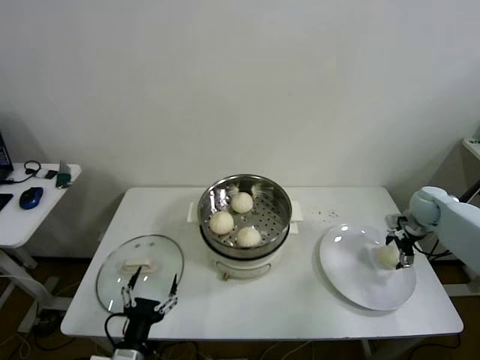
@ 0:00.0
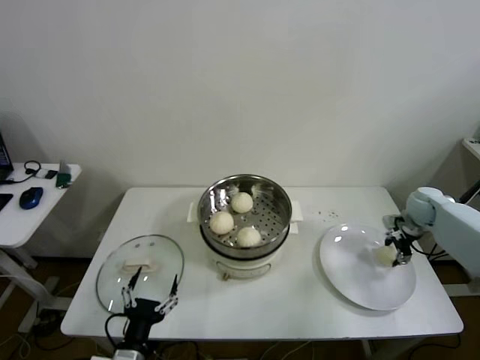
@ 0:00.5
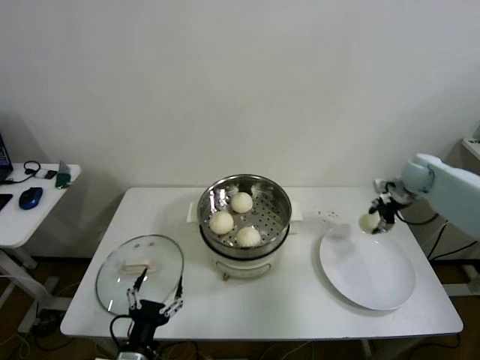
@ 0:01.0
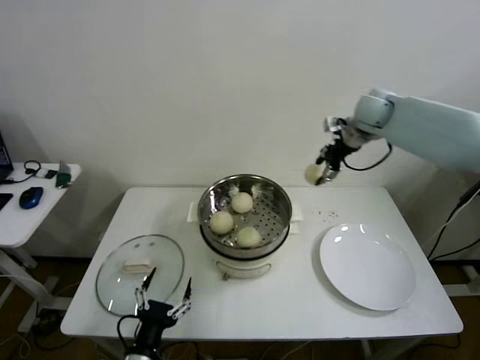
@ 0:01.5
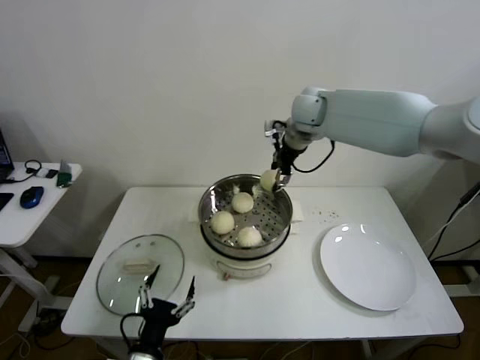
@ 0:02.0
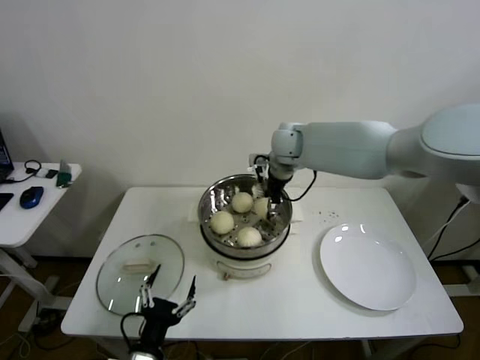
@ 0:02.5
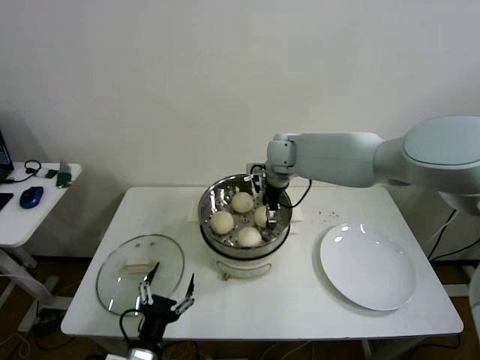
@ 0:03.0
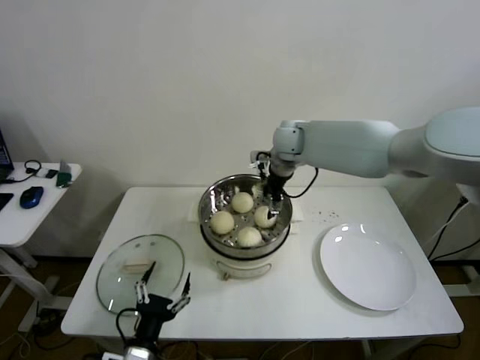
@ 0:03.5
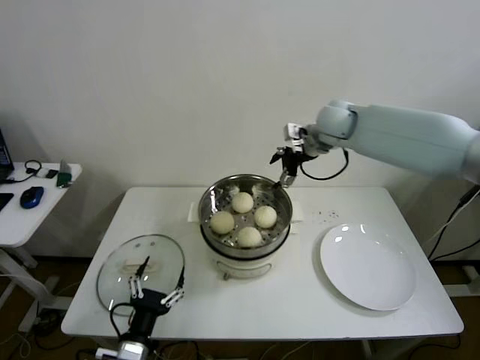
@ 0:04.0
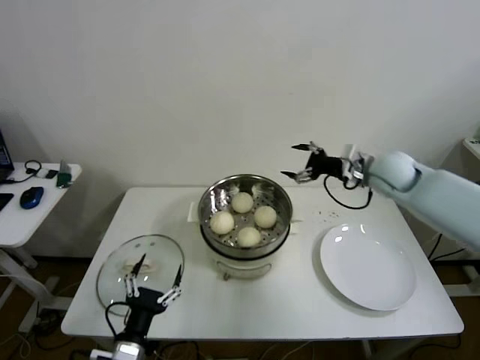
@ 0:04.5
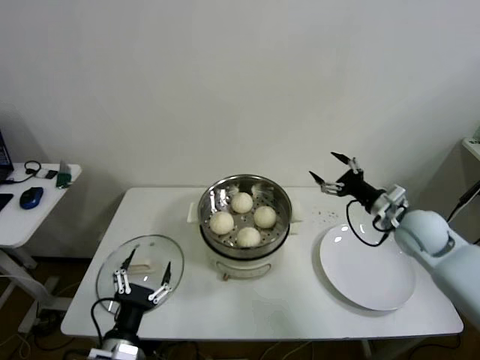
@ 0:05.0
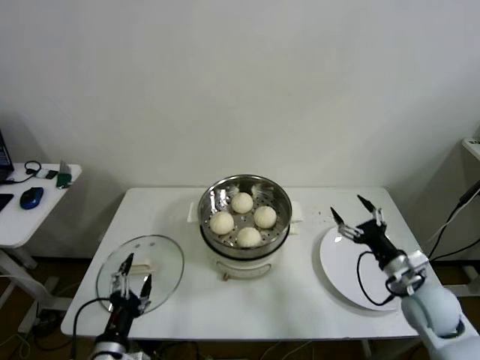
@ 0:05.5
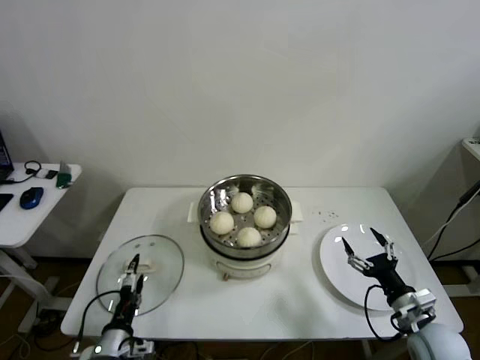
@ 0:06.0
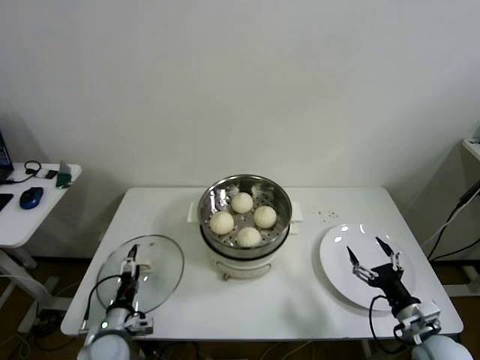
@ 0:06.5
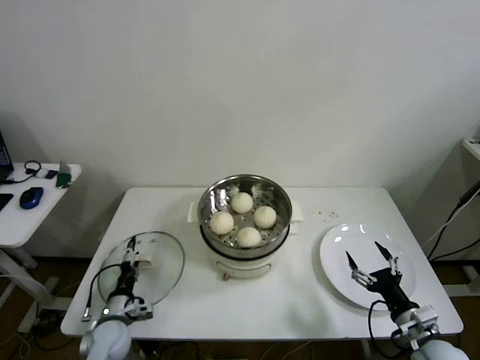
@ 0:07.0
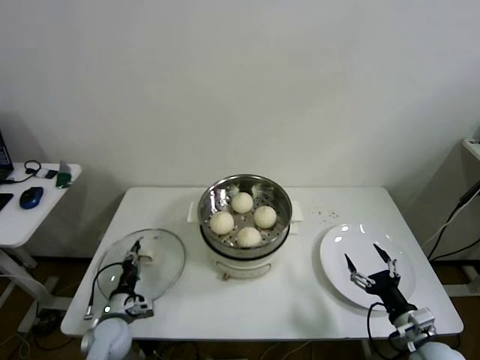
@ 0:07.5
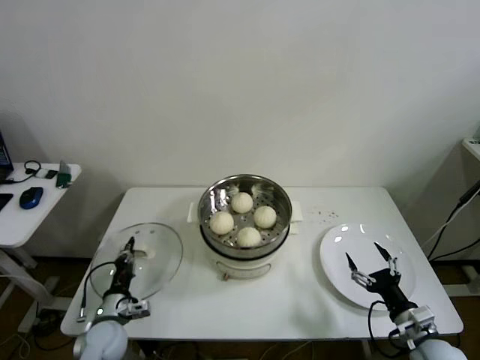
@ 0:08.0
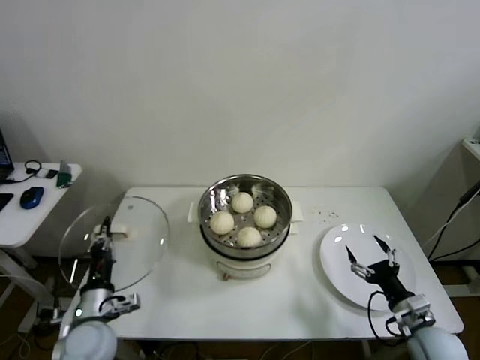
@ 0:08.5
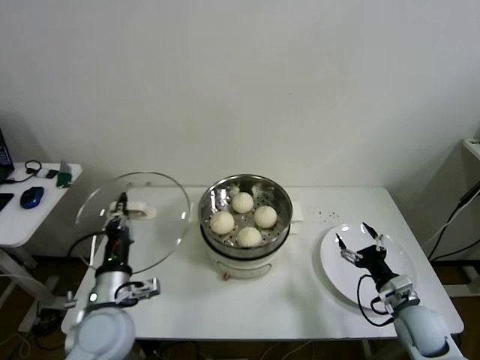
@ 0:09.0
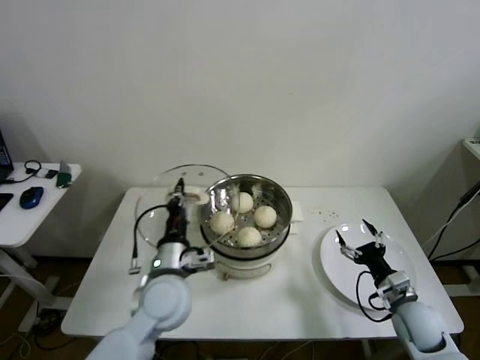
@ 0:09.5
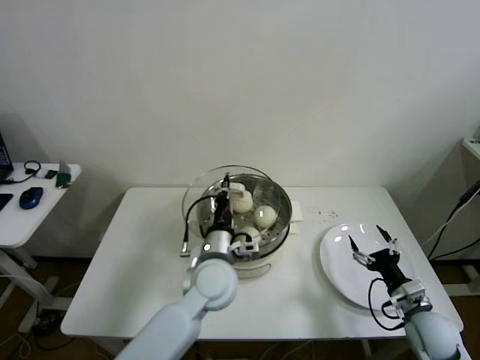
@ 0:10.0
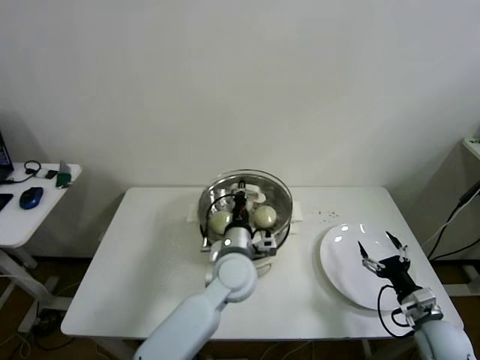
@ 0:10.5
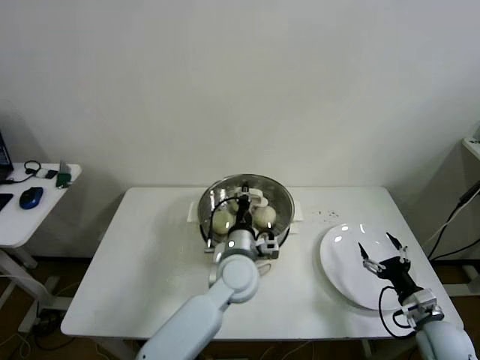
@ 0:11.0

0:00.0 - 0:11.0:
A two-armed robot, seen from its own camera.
Step, 0:01.0 - 0:03.0: Place the baozi on the steamer with right gripper.
Step, 0:03.5 - 0:07.5: Grasp the pot lid with left gripper.
0:00.0 - 0:02.0: The right gripper shifts about 40 cm to the left and upward, and closes its fingers.
0:02.0 - 0:03.5: The right gripper shifts about 10 cm downward, and opens.
0:03.5 - 0:05.5: The right gripper heads backward, to the right and downward, covering about 40 cm. The left gripper shifts by roughly 5 cm.
0:05.5 - 0:07.5: The left gripper is displaced forward, downward and to the left by about 20 cm, and closes, while the right gripper moves backward and downward, approximately 15 cm.
0:07.5 - 0:09.0: The right gripper shifts about 5 cm forward. The left gripper moves upward, roughly 20 cm.
0:09.0 - 0:11.0: The left gripper is displaced to the right and forward by approximately 25 cm.

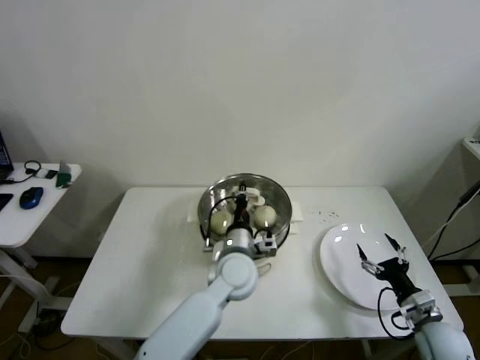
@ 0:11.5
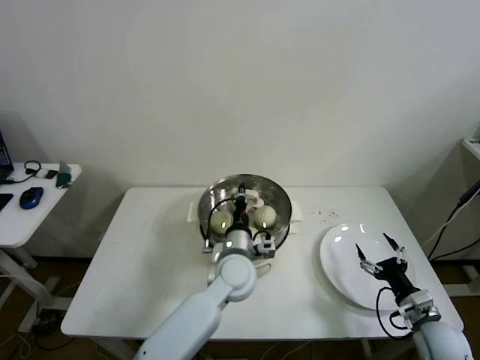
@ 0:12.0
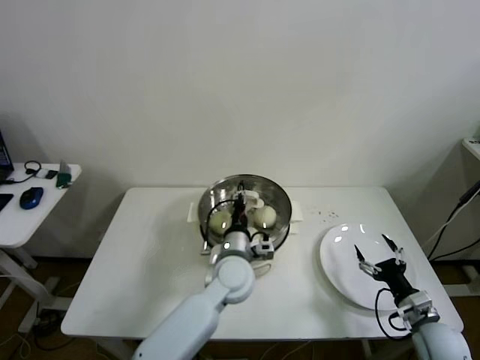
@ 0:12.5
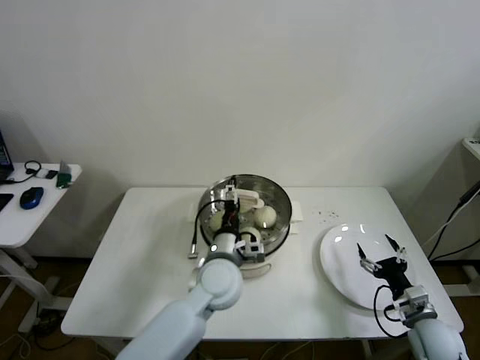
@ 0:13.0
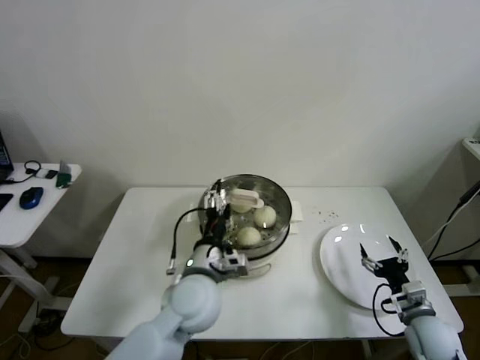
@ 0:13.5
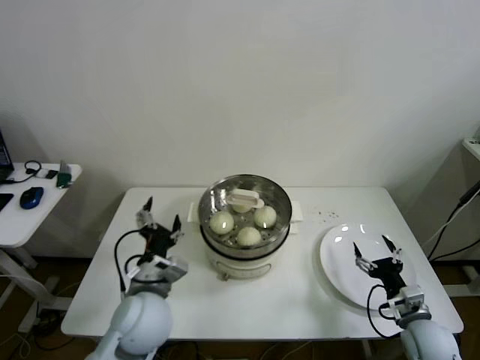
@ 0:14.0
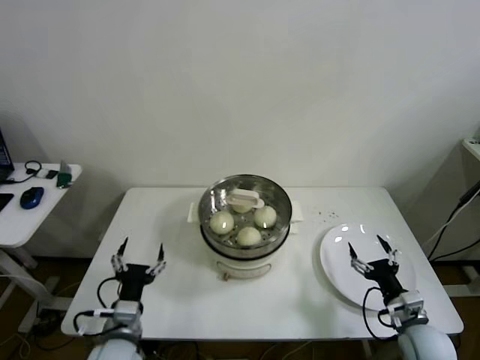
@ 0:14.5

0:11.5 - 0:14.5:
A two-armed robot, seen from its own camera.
0:11.5 - 0:13.0: The left gripper opens its fingers.
0:13.0 - 0:14.5: The left gripper shifts some 25 cm to the left and backward.

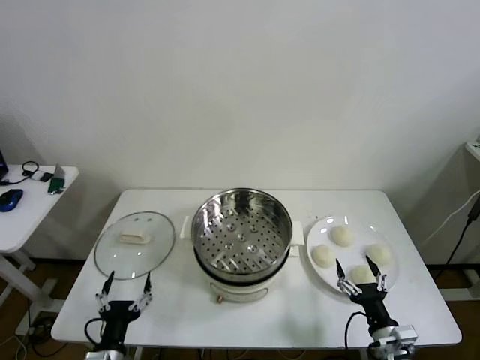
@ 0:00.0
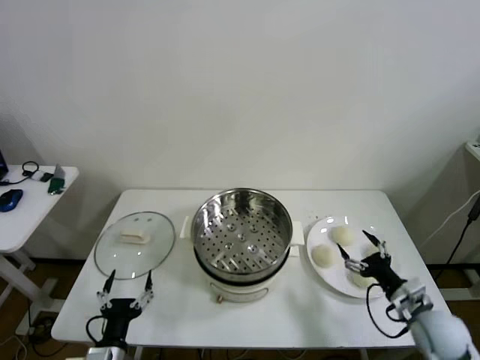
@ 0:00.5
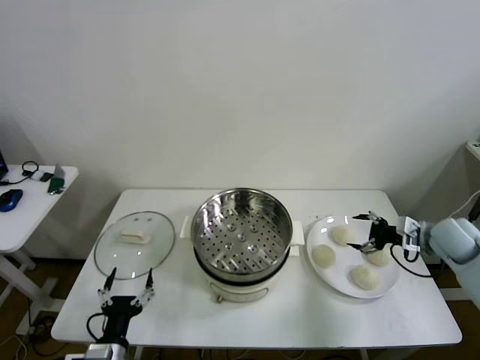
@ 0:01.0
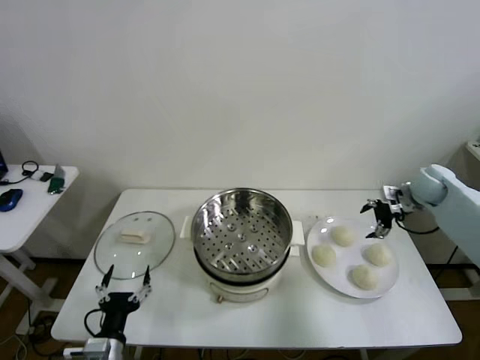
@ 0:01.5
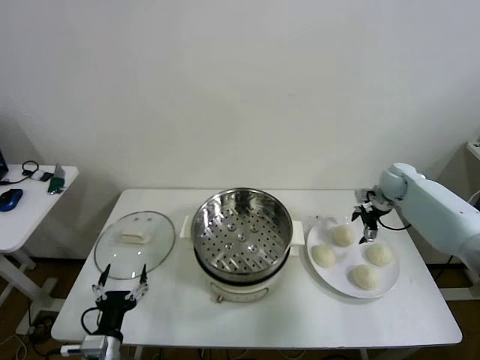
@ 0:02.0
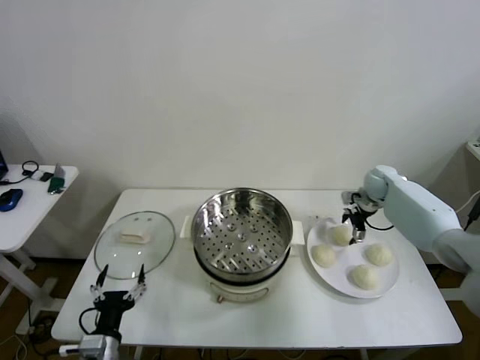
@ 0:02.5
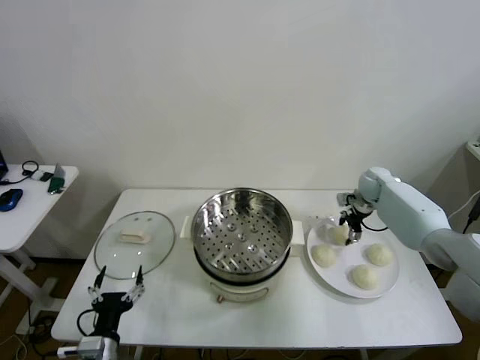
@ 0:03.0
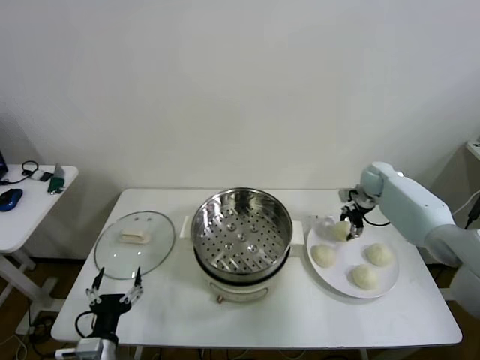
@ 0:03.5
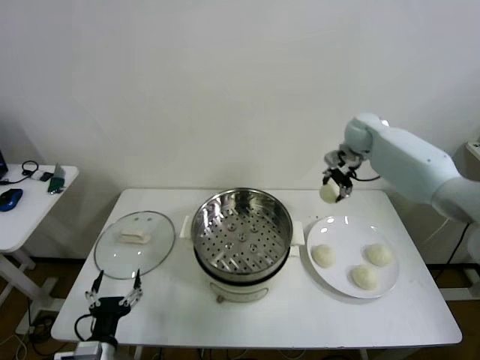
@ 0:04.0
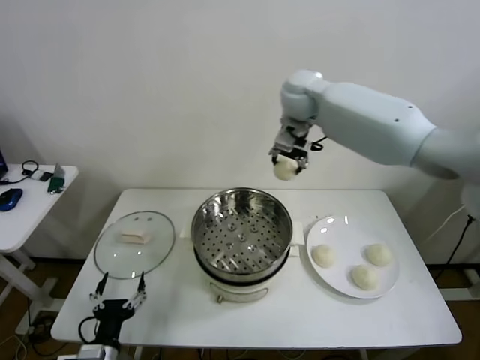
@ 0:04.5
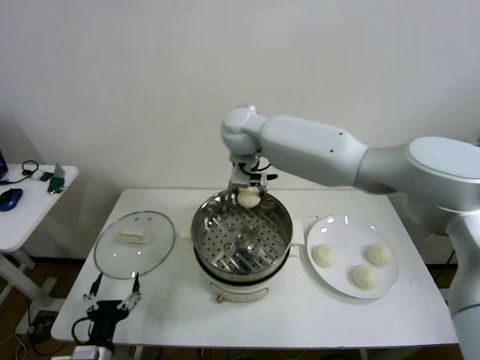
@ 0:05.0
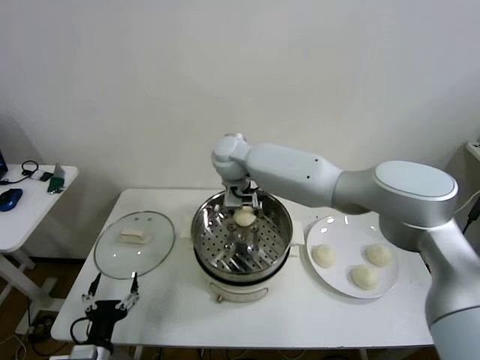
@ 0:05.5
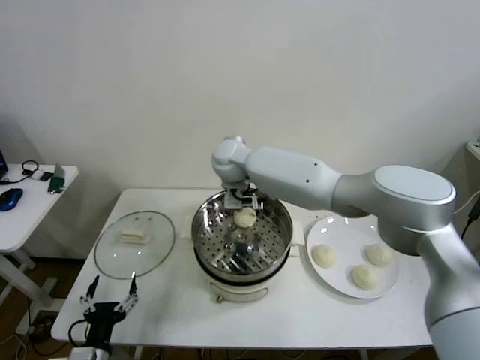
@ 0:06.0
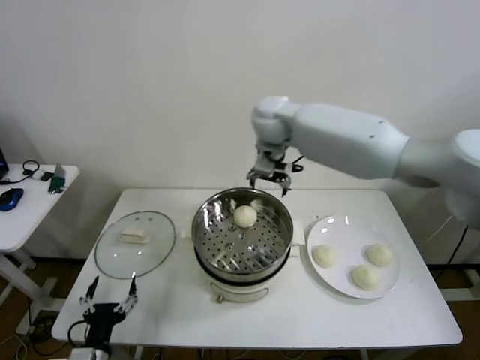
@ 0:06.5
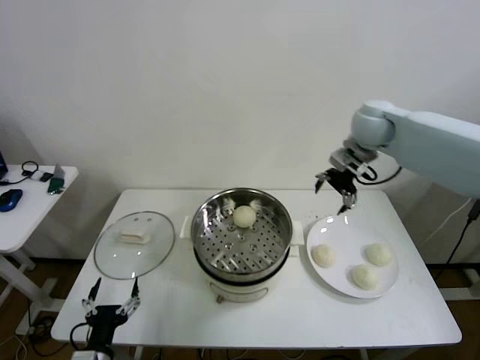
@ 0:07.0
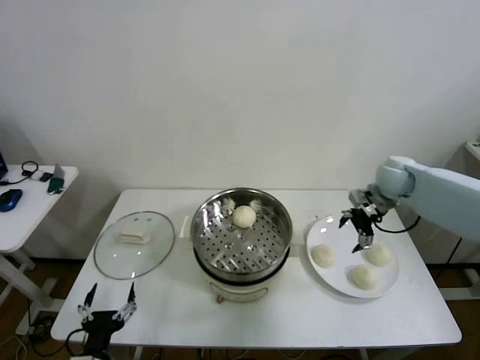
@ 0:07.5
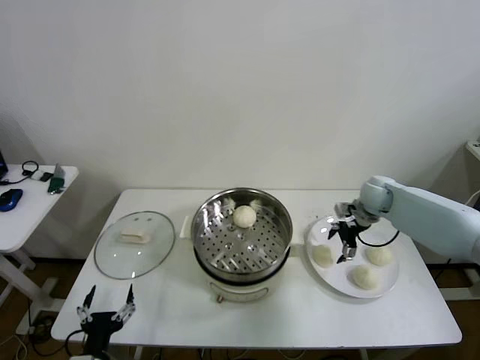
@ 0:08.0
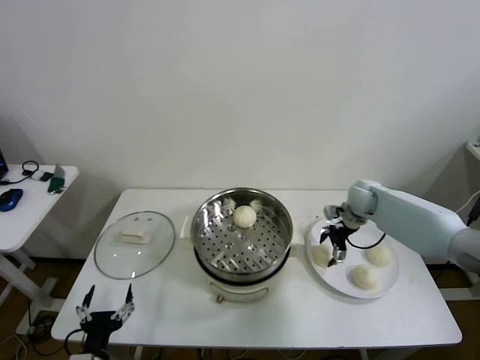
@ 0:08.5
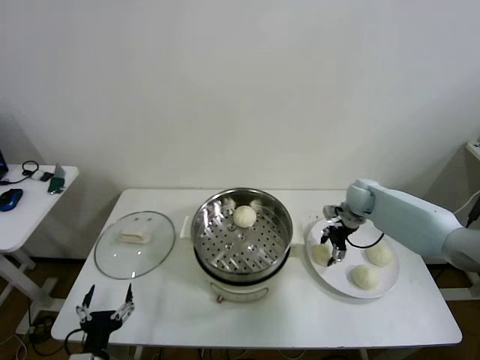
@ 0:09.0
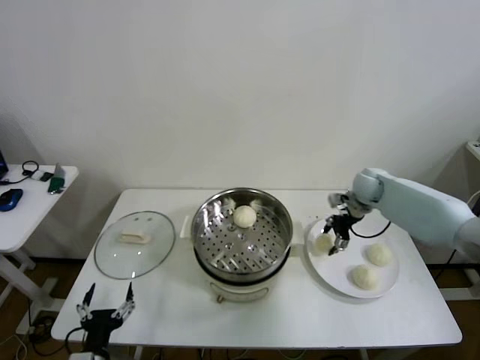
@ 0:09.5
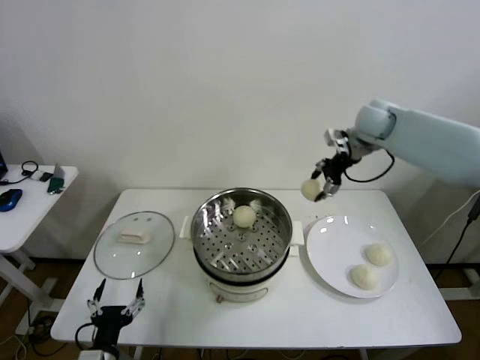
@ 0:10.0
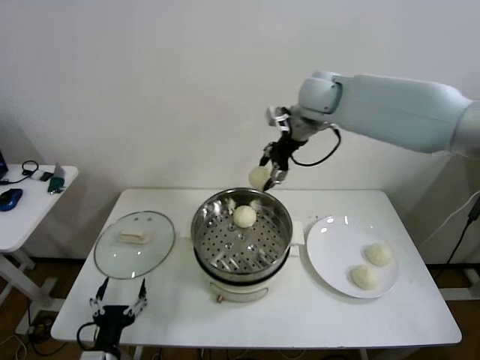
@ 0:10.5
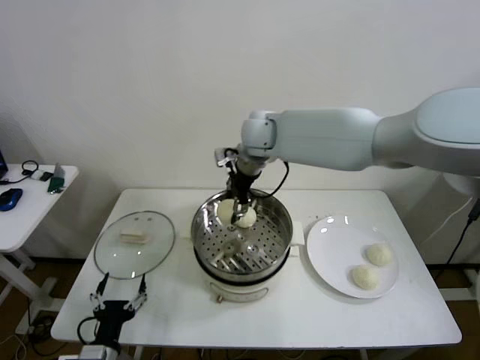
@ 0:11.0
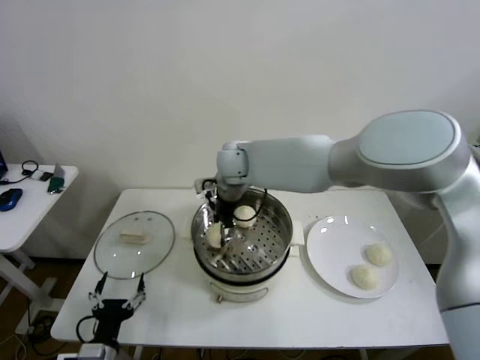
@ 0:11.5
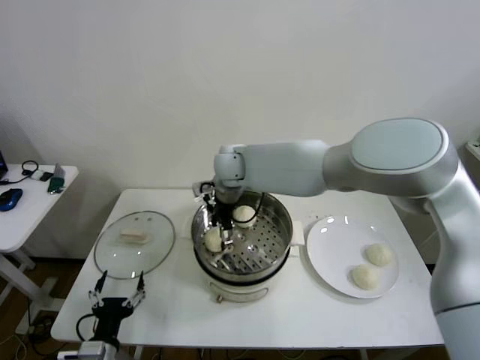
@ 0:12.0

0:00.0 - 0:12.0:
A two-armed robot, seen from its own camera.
Step, 0:00.0 - 0:03.0: Grasp the baozi in the plate with right gripper.
Step, 0:03.5 - 0:05.5: Place the baozi on the steamer with right gripper.
Step, 0:06.0 - 0:08.5: Grasp the baozi in the plate with right gripper.
Step, 0:09.0 - 0:12.0: Place the baozi on the steamer with right gripper.
0:02.0 - 0:04.0: The right gripper goes roughly 20 cm upward and to the left, and closes.
0:04.0 - 0:06.0: The right gripper shifts approximately 30 cm to the left, and opens.
0:06.0 - 0:08.0: The right gripper travels to the right by approximately 35 cm.
0:08.0 - 0:10.0: The right gripper shifts some 25 cm upward, and closes.
0:10.0 - 0:12.0: The right gripper shifts approximately 30 cm to the left, and opens up.
